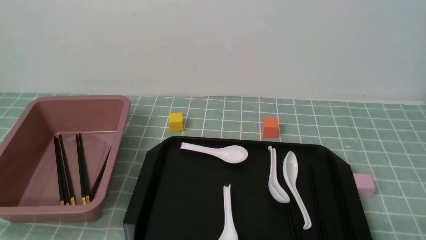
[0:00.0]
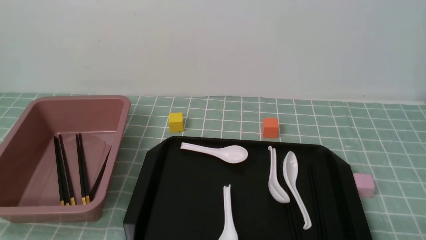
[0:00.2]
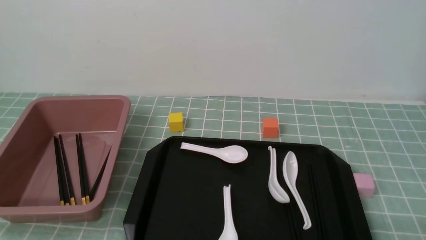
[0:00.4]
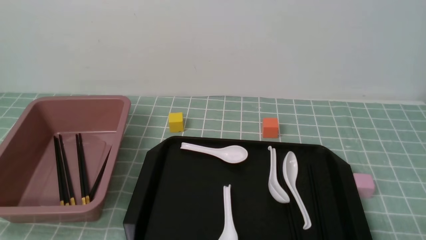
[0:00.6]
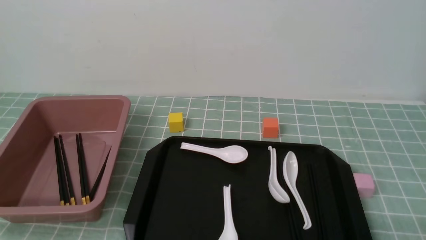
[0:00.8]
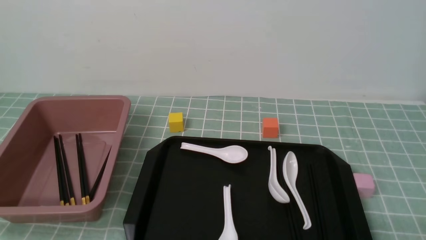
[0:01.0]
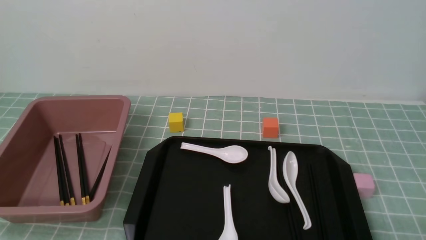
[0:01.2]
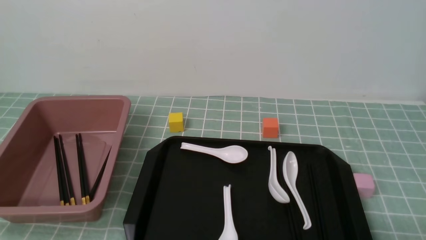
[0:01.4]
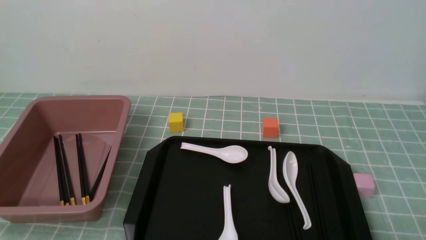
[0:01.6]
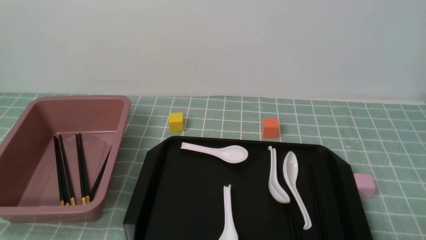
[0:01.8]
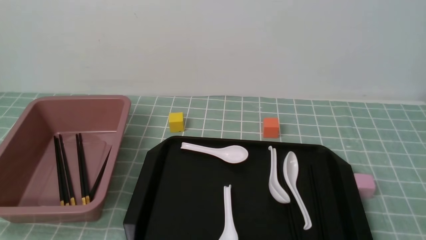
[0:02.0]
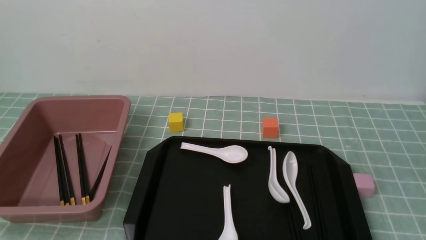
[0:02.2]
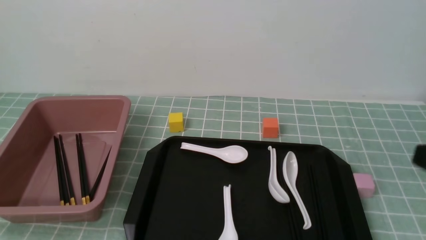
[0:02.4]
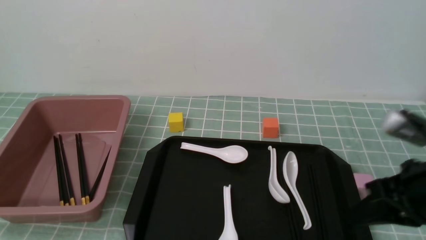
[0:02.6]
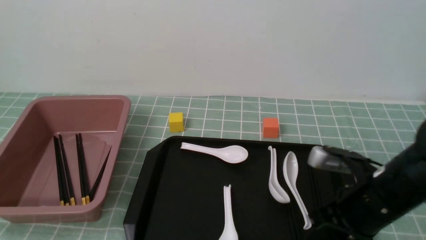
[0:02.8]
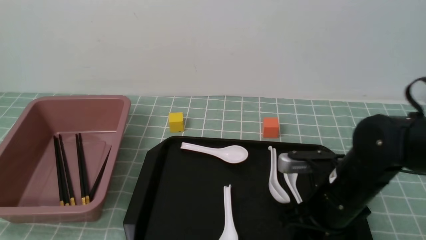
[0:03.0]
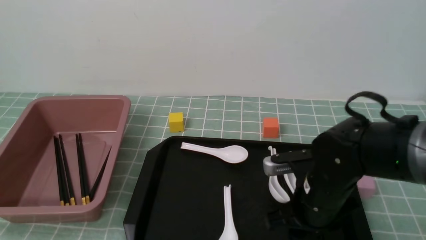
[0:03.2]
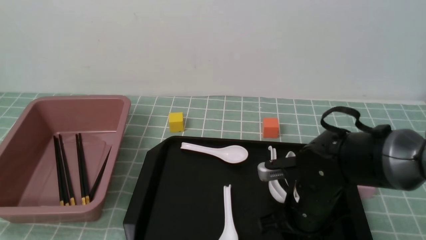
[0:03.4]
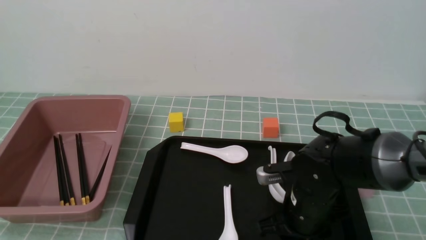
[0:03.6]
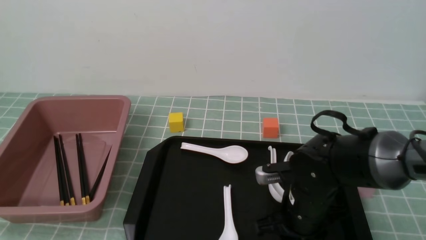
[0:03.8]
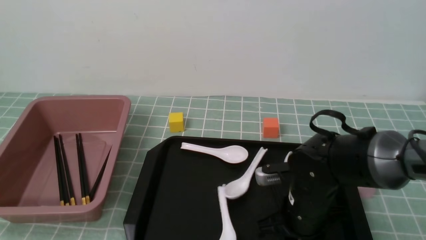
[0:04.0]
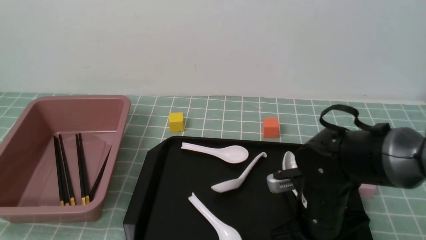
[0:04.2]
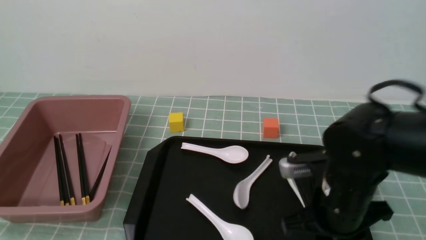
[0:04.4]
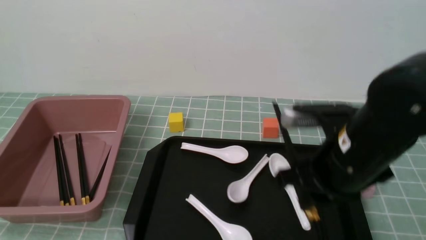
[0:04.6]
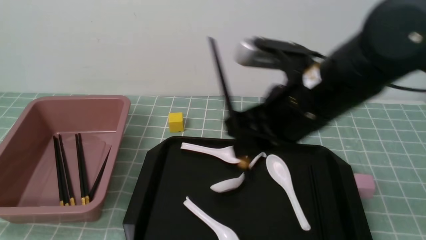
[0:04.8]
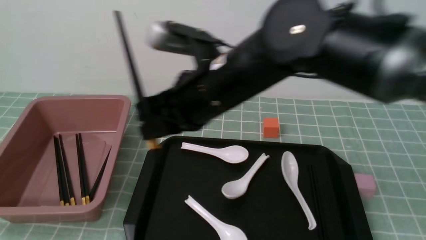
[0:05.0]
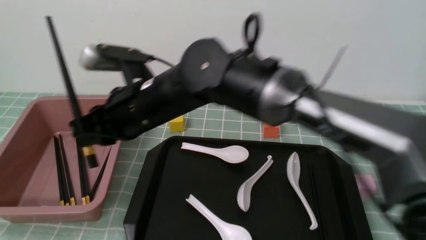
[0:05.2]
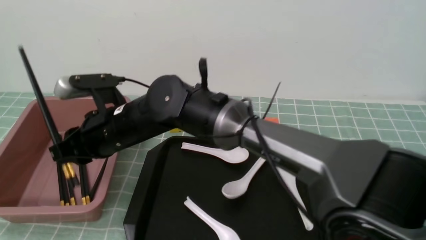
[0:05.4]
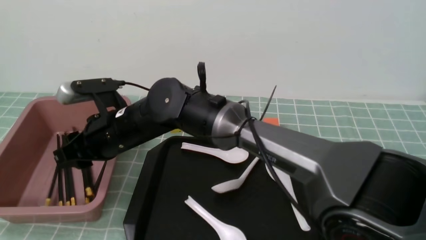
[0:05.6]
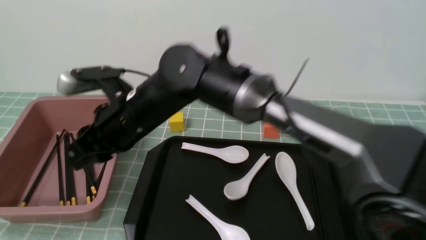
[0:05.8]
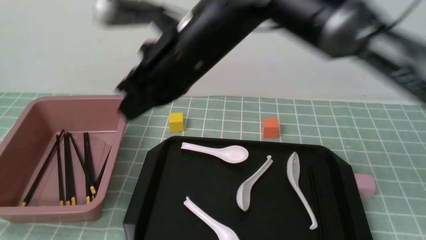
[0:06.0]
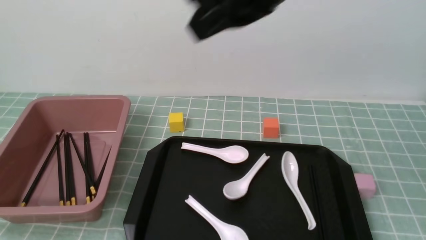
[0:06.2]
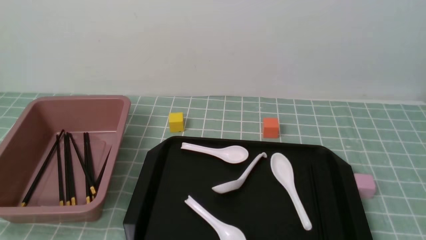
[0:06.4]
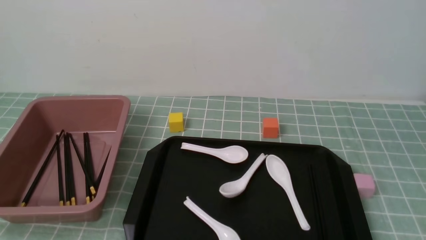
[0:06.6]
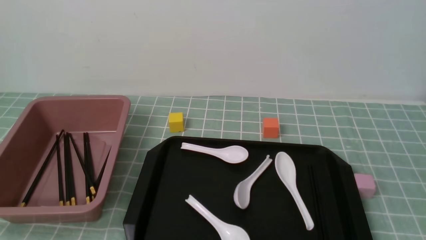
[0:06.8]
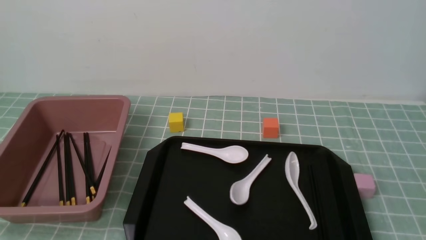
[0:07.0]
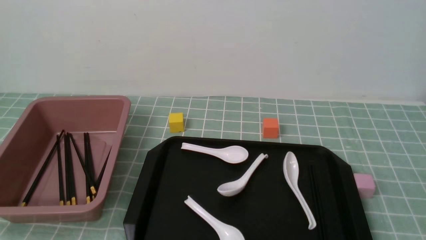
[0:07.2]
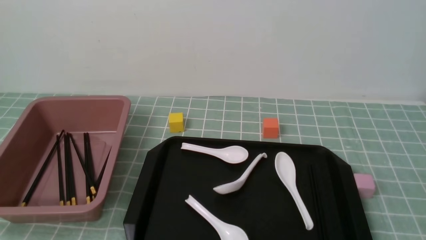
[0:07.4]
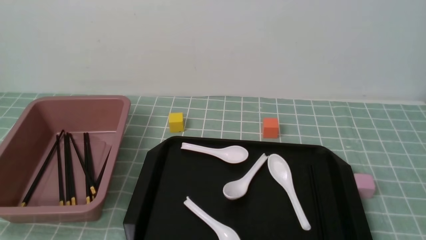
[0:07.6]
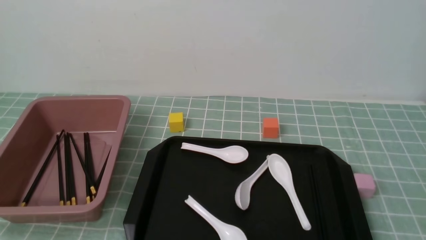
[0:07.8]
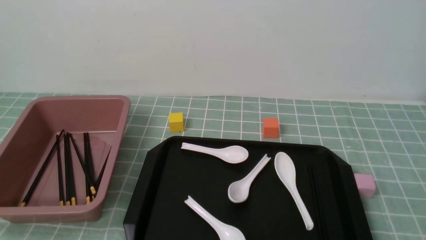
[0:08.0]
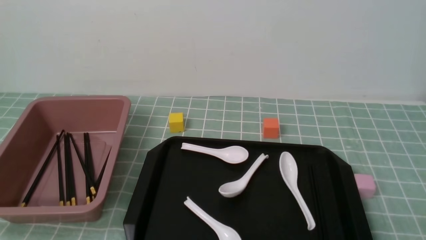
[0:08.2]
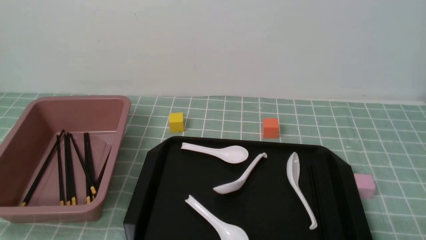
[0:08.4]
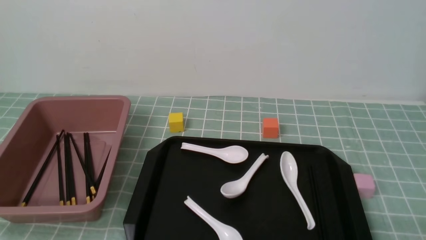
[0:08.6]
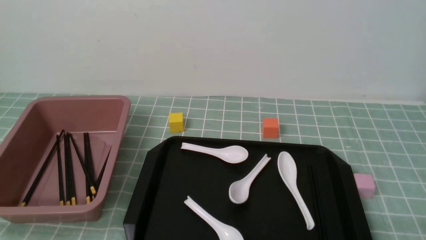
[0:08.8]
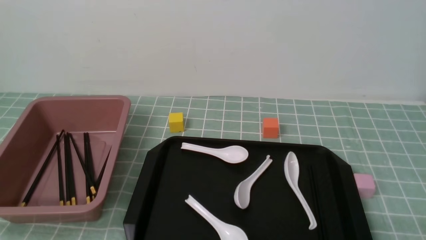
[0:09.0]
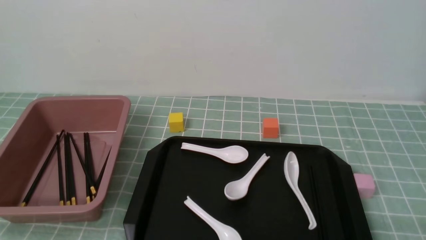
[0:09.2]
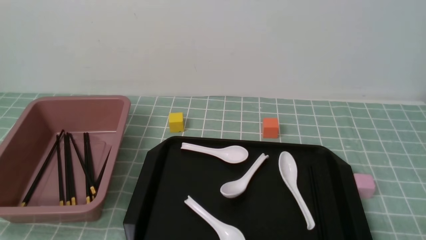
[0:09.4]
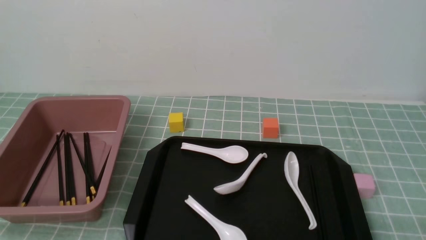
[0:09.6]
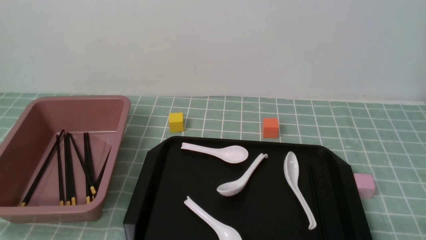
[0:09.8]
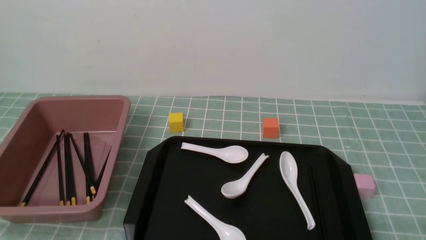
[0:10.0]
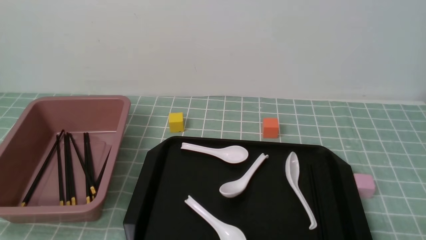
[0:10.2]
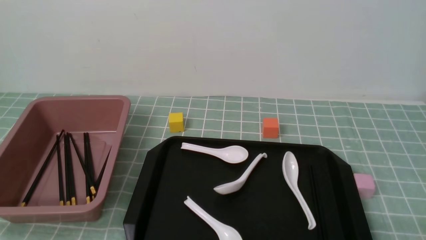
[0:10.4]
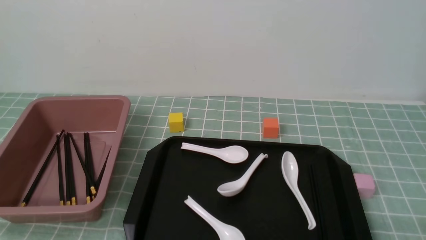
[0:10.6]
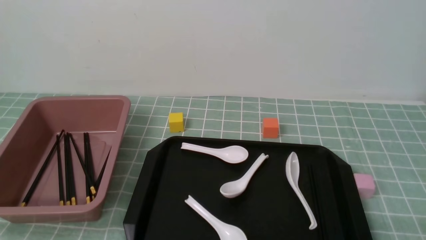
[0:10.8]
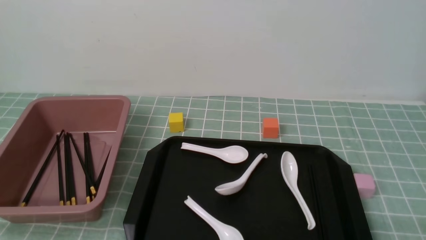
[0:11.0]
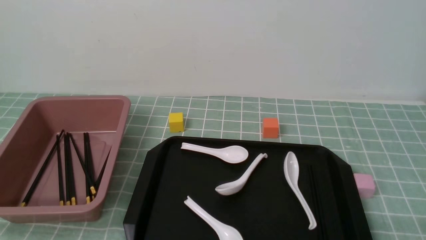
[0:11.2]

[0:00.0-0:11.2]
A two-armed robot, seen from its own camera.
Step, 0:00.0 to 0:04.6: use the right arm to grab a pair of chopsticks.
Step, 0:04.8 to 0:05.8: use the right arm to put the chopsticks into the lunch box.
0:01.6 to 0:03.2: The right gripper heads forward and to the left, covering approximately 25 cm, and closes, then reopens.
0:03.2 to 0:04.8: The right gripper shifts approximately 20 cm upward and to the left, and closes up.
0:04.8 to 0:06.4: The right gripper is displaced upward, to the right and backward by roughly 25 cm, and closes up.
0:06.4 to 0:08.0: The right gripper shifts approximately 30 cm downward, backward and to the right.
0:08.0 to 0:09.6: The right gripper heads downward, covering some 10 cm.
0:09.6 to 0:11.2: The two grippers keep their place.
